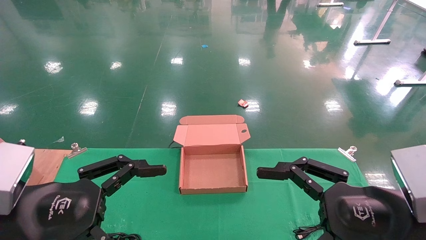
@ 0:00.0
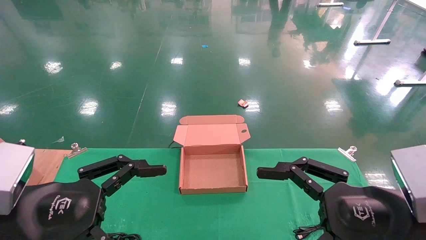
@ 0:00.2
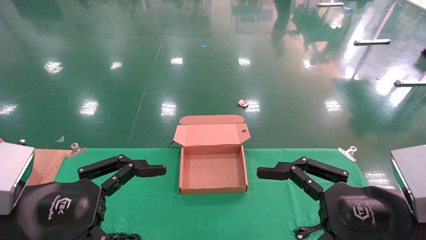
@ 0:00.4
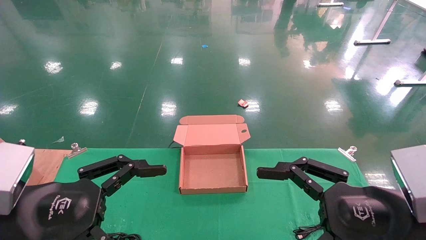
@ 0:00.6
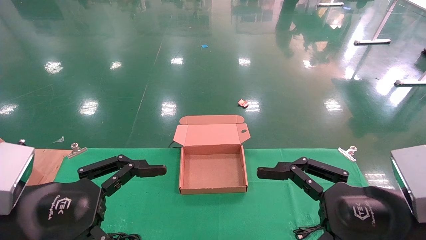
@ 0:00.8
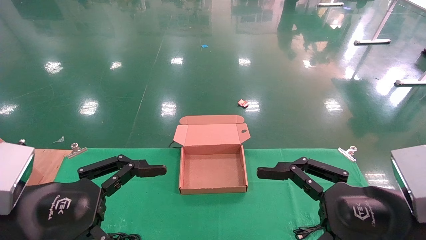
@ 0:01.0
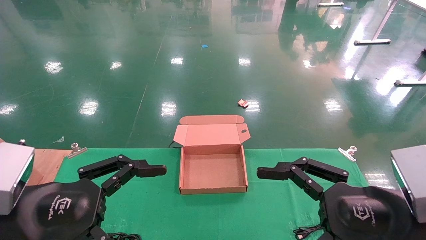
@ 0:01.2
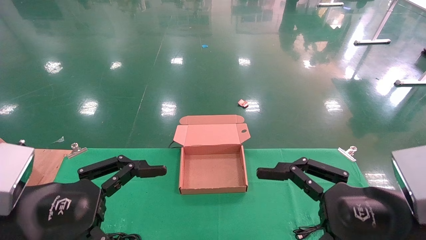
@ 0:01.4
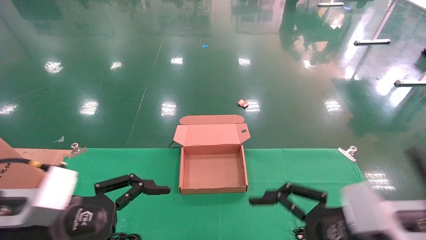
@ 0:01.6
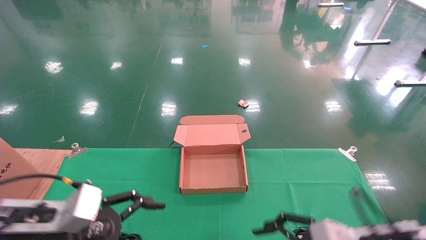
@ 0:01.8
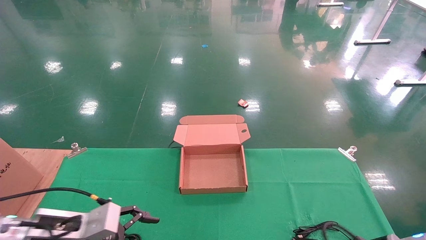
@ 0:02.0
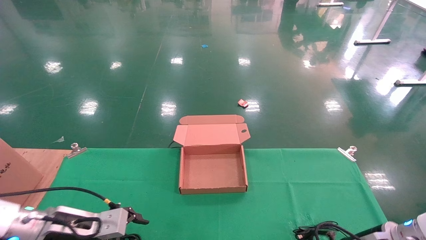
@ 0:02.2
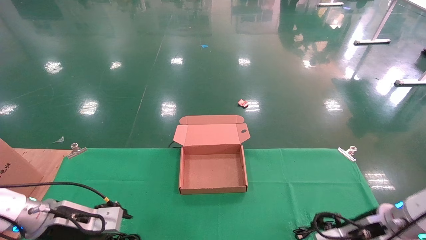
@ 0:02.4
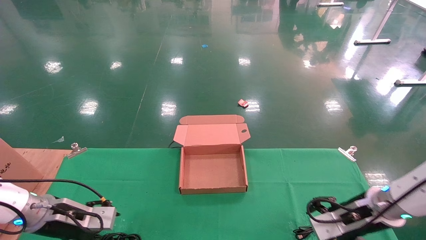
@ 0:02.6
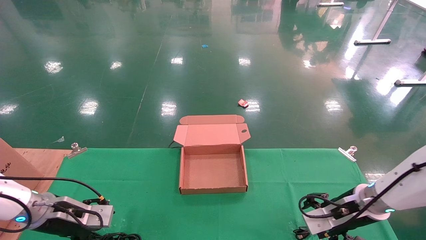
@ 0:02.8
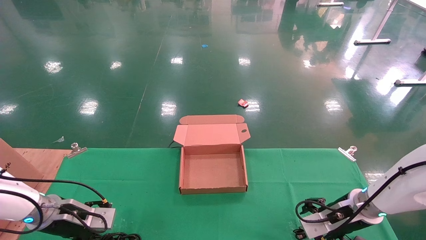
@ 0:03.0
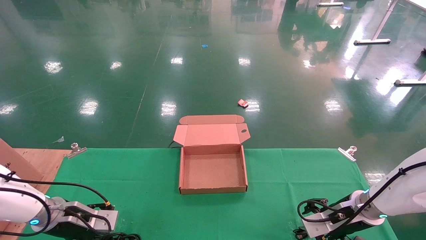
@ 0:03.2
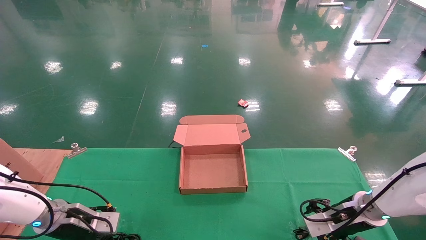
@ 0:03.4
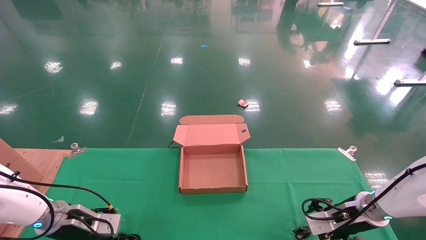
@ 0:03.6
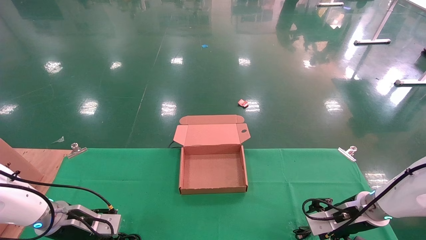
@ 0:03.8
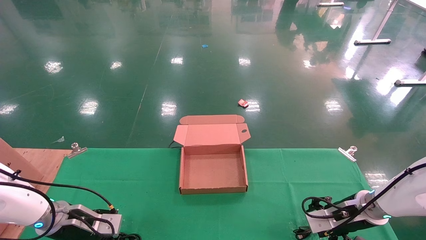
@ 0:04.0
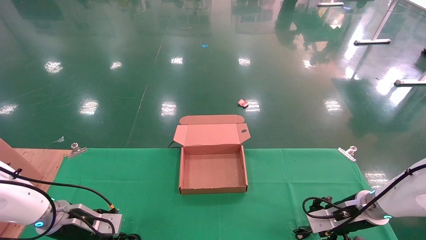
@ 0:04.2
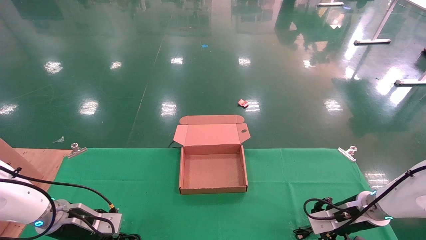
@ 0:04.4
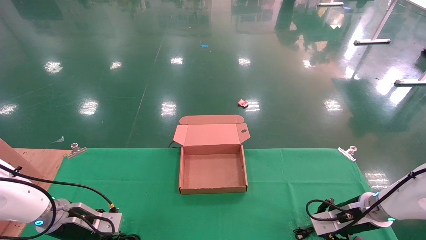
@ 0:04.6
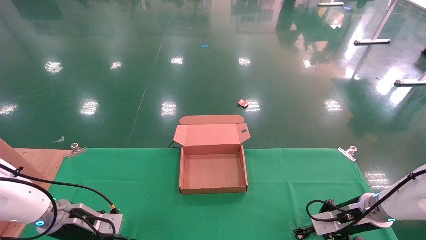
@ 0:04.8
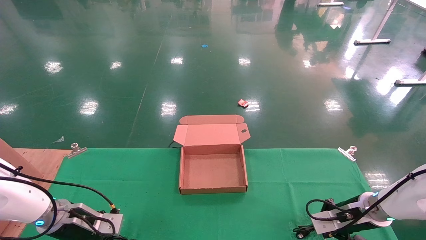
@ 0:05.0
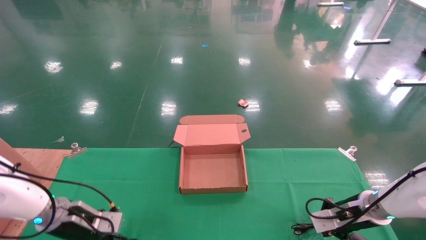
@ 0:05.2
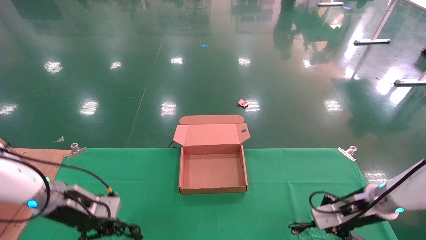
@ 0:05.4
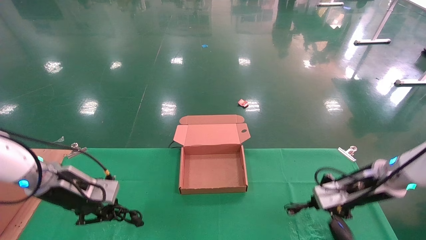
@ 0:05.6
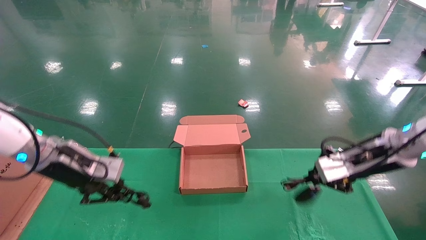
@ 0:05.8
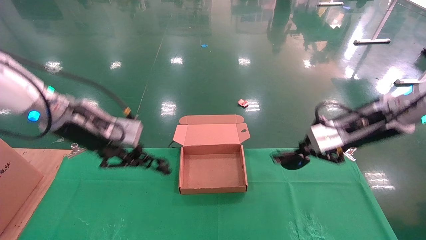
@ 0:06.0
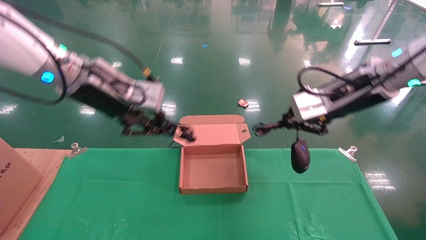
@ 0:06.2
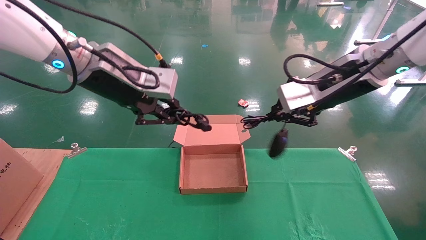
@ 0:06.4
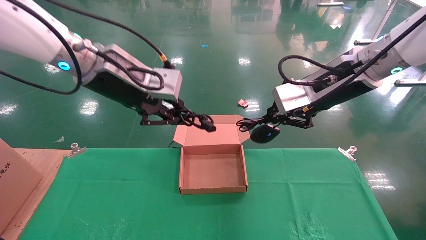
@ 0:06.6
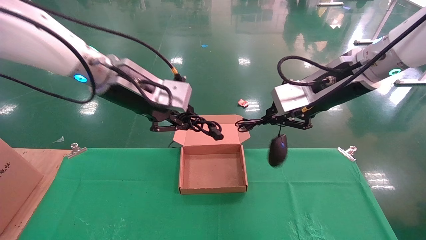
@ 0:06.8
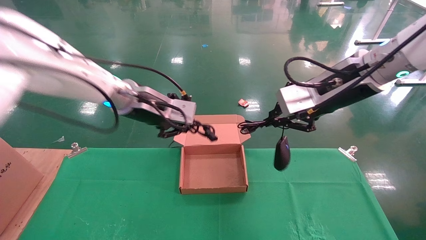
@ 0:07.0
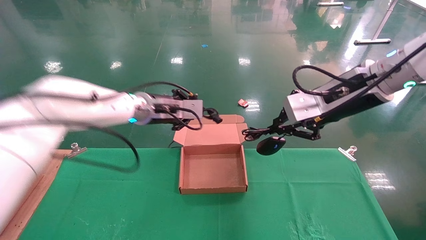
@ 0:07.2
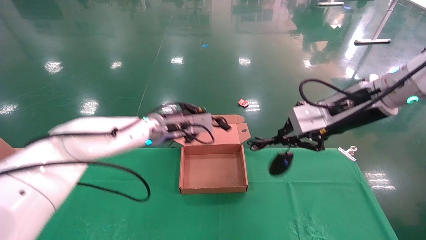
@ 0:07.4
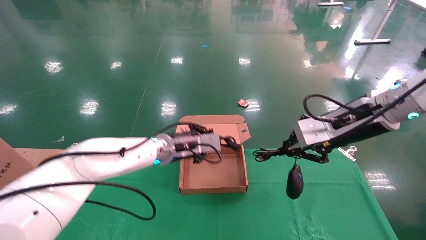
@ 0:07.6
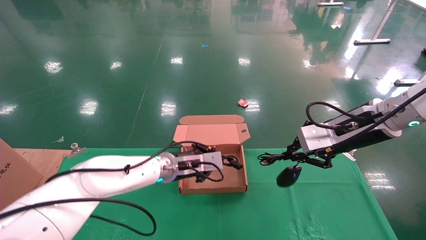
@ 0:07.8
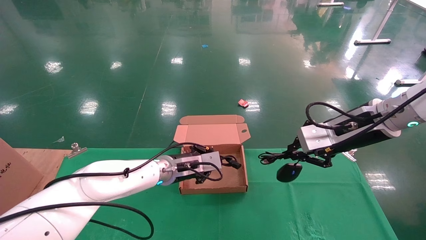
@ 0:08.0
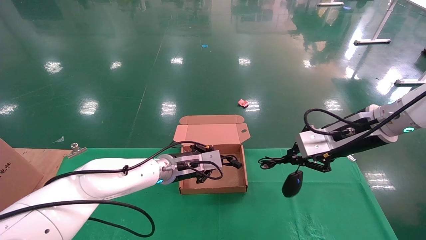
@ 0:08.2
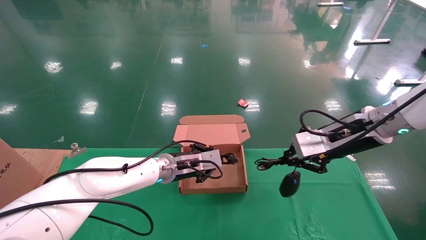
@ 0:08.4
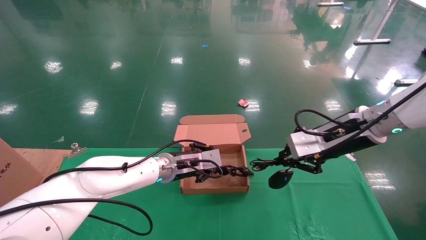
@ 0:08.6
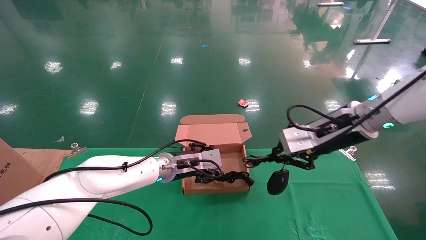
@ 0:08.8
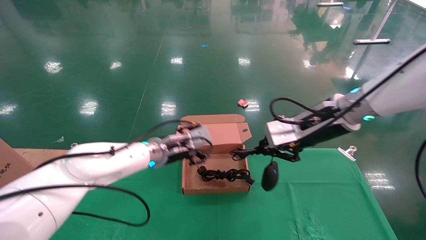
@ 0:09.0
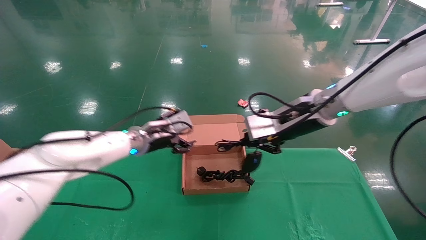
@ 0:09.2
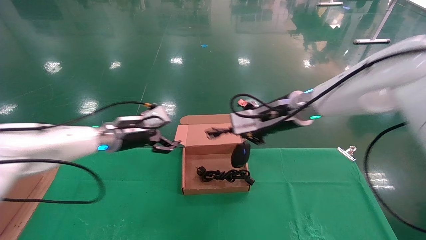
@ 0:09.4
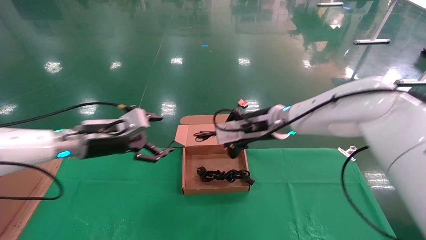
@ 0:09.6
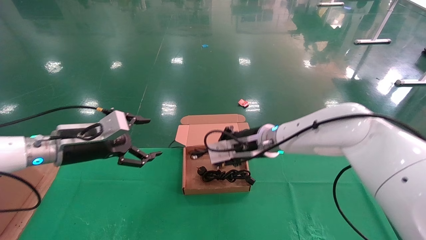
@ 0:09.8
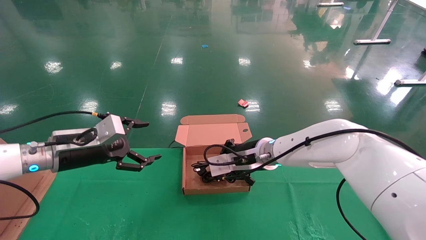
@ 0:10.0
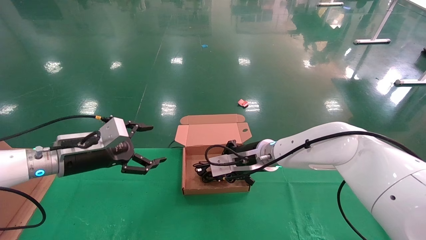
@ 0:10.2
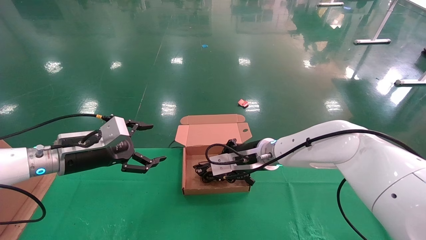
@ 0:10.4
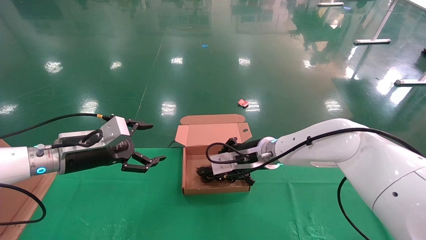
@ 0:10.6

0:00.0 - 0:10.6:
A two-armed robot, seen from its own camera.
Step, 0:01.8 - 0:05.8: Grab and lift both the mouse and power cord from the accessory packaging area at the same time.
0:00.0 - 0:01.6: The left gripper shifts by some 5 cm; the right gripper changes place by about 5 cm.
0:01.6 - 0:03.0: The left gripper travels forward, downward and to the left by some 20 cm. Meanwhile the right gripper moves forward and downward, roughly 20 cm.
0:03.0 - 0:04.6: The right gripper closes its fingers. Meanwhile the left gripper closes up.
0:04.6 - 0:06.0: Both grippers move upward, some 25 cm. The right gripper closes. Meanwhile the left gripper closes up.
0:06.0 - 0:07.6: The left gripper moves to the right, downward and forward, roughly 20 cm.
0:07.6 - 0:09.0: The left gripper opens its fingers, while the right gripper goes approximately 5 cm to the left.
0:09.0 - 0:10.6: The right gripper goes some 15 cm downward, to the left and forward. Meanwhile the left gripper heads to the left and backward, covering approximately 20 cm, and opens.

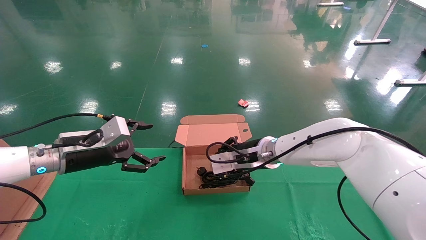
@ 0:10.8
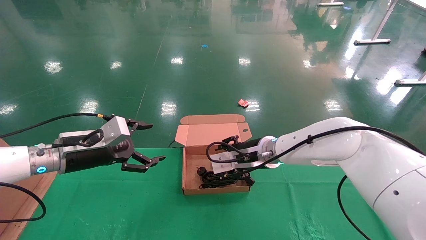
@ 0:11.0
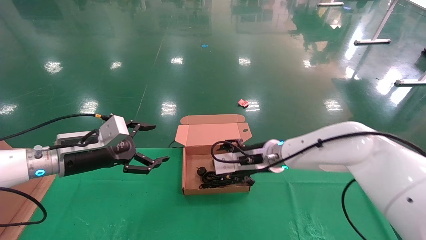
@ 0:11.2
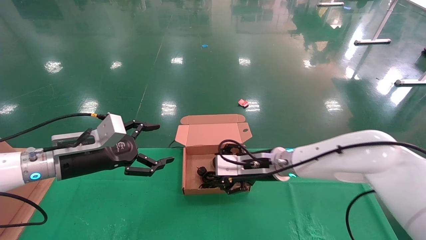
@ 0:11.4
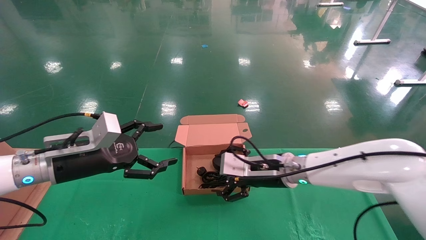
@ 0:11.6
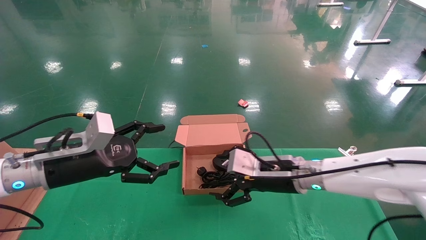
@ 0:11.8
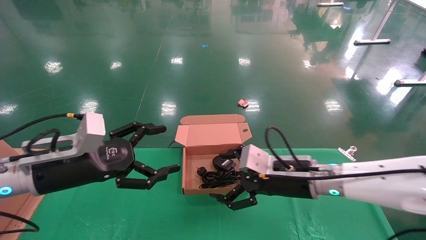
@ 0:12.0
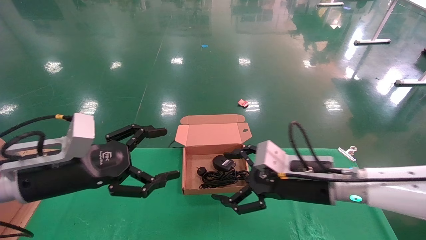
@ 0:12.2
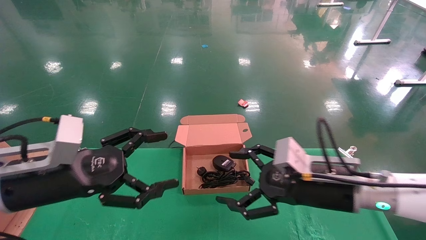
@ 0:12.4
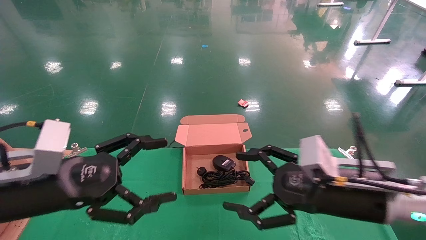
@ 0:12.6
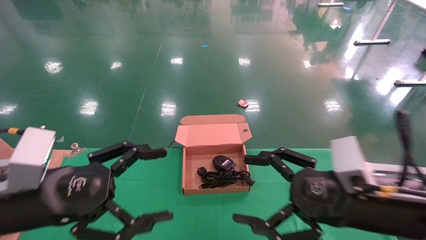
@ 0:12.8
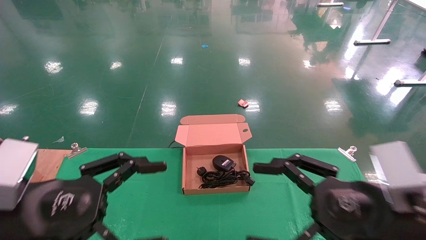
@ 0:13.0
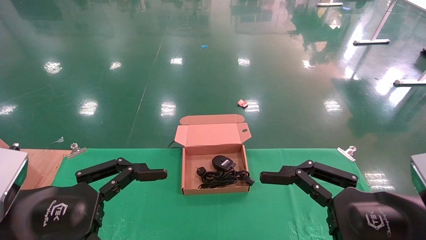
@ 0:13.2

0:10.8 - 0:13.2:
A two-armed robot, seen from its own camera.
0:10.8 - 0:12.0: The left gripper moves backward, roughly 10 cm, while the right gripper shifts roughly 10 cm backward and to the right, and opens up.
0:12.0 - 0:13.2: The left gripper is displaced backward by roughly 15 cm; the right gripper shifts approximately 20 cm backward and to the right.
